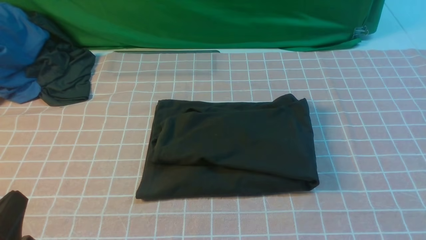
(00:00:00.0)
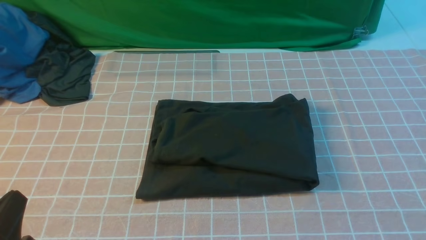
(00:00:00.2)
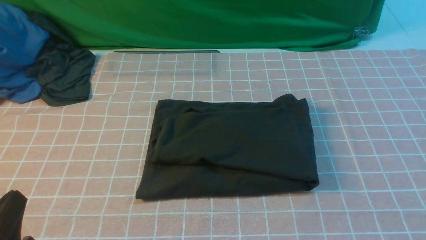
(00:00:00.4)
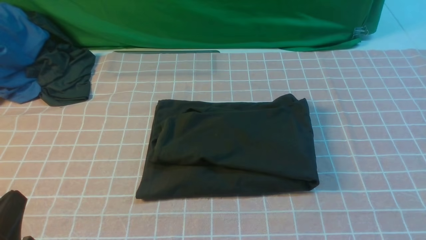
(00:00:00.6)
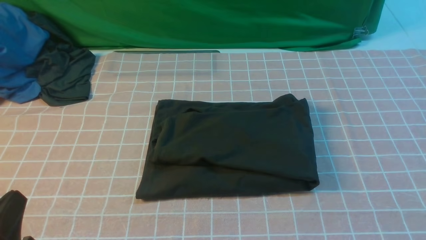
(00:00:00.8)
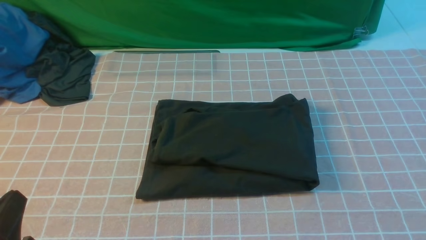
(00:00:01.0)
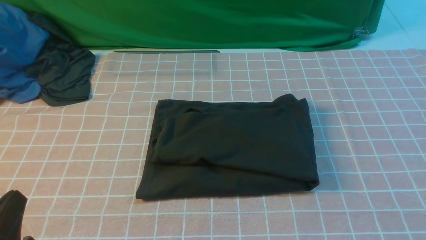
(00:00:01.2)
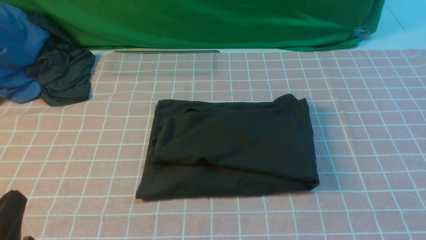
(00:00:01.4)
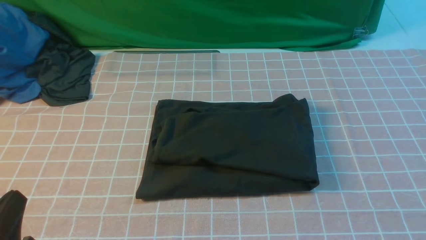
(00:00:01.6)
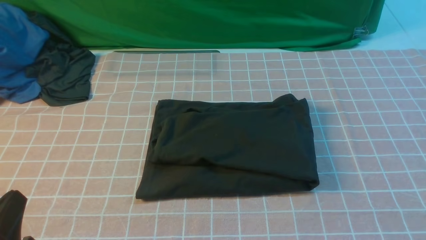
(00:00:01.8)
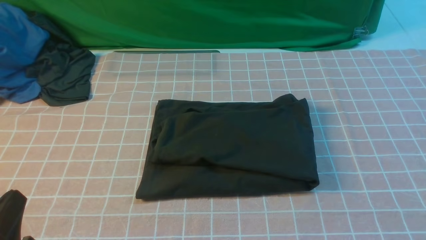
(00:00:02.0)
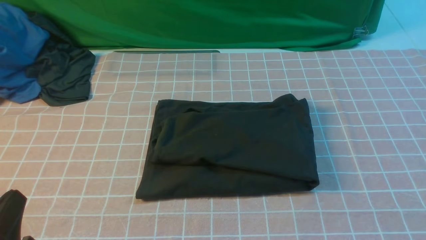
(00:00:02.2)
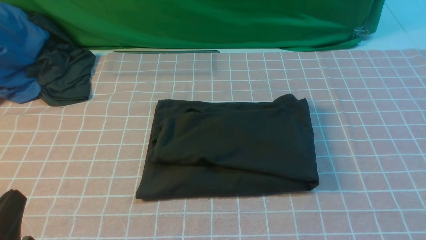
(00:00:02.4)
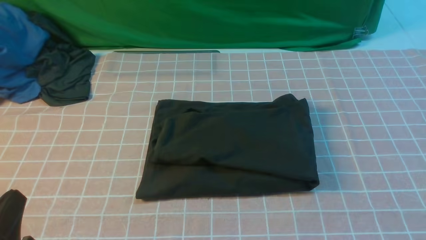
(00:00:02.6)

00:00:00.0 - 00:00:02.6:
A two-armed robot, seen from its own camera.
00:00:01.2 - 00:00:02.6: Neither gripper changes place.
